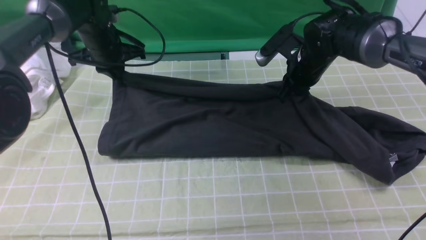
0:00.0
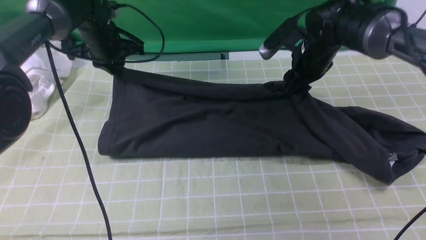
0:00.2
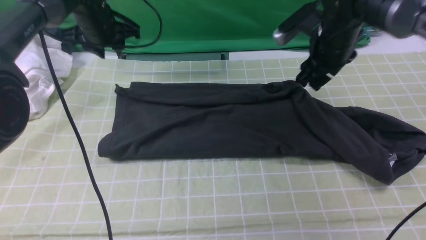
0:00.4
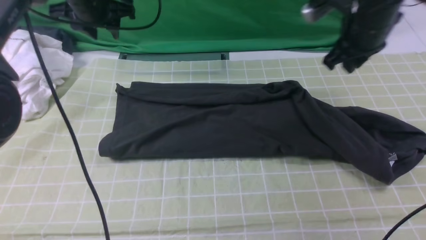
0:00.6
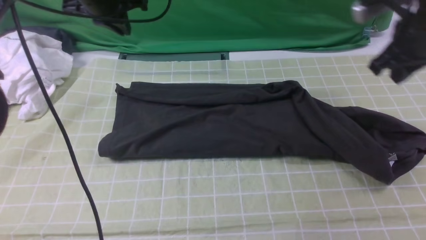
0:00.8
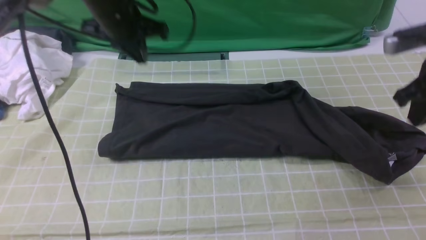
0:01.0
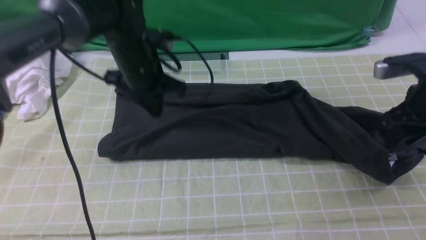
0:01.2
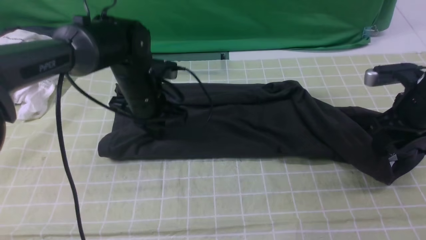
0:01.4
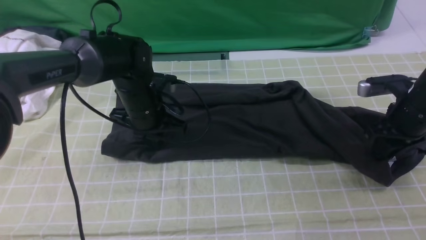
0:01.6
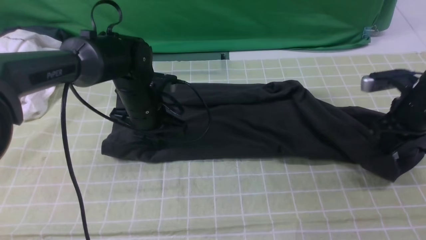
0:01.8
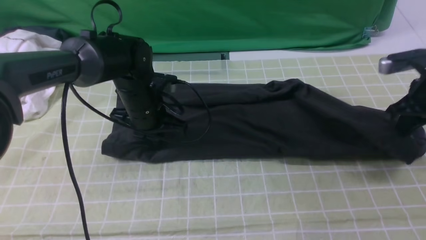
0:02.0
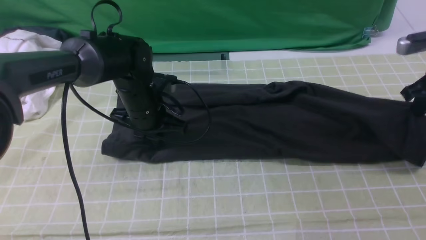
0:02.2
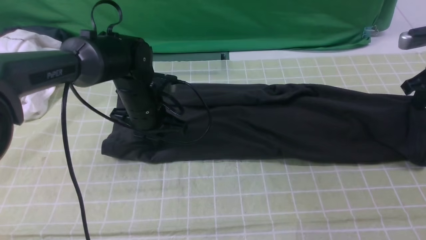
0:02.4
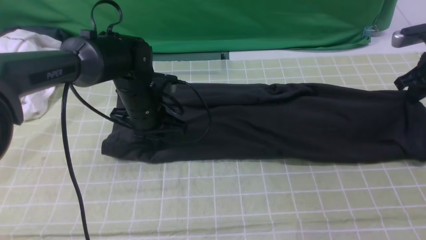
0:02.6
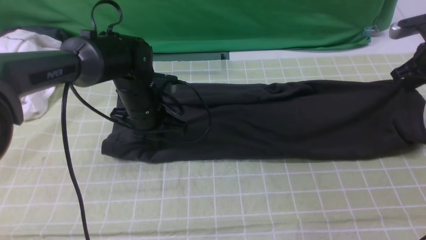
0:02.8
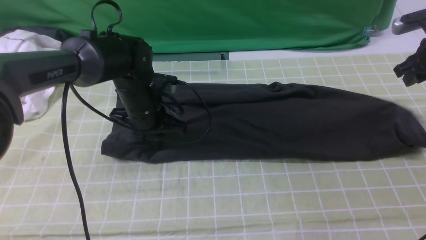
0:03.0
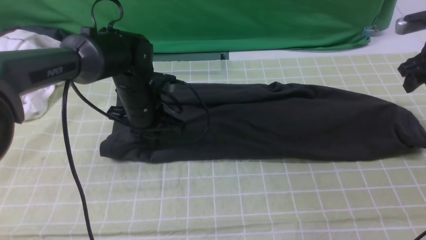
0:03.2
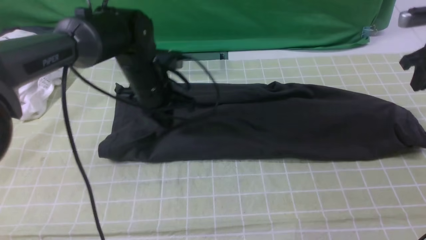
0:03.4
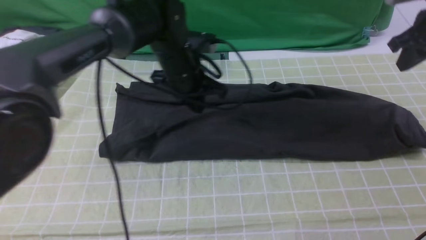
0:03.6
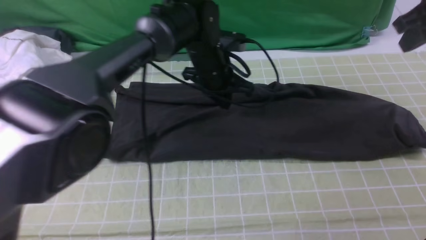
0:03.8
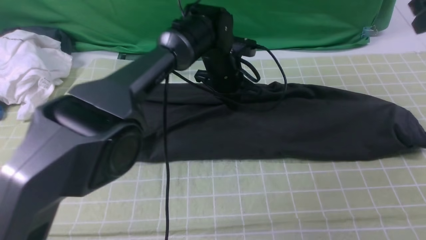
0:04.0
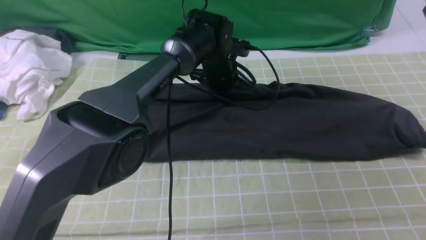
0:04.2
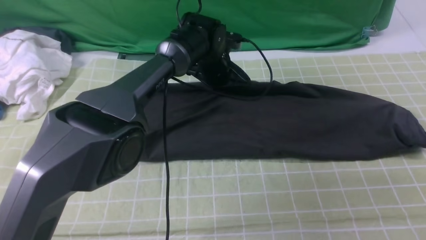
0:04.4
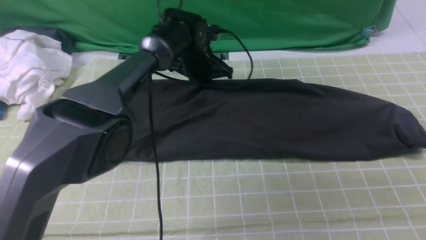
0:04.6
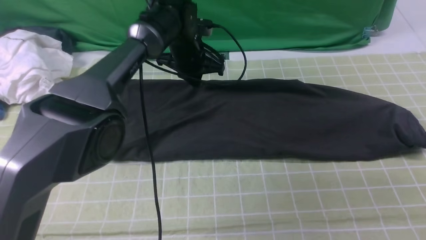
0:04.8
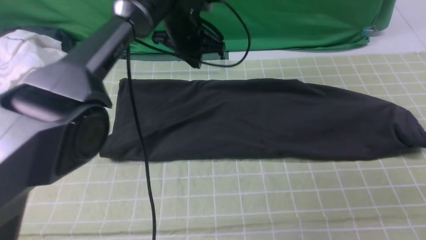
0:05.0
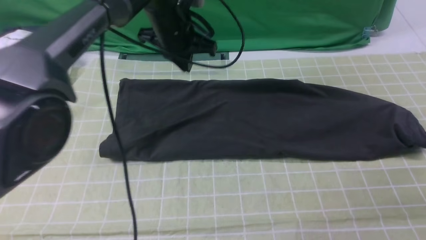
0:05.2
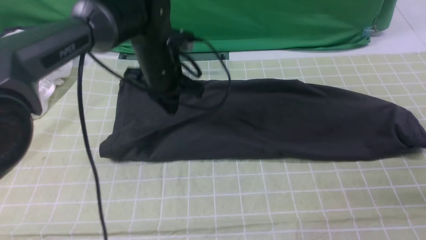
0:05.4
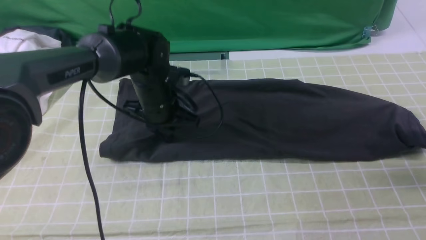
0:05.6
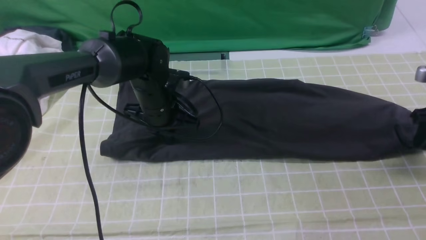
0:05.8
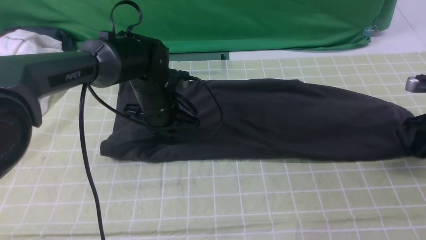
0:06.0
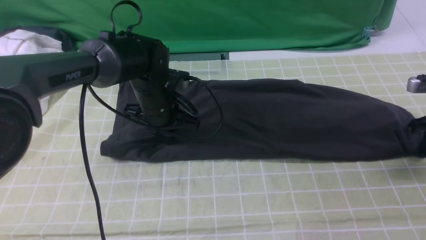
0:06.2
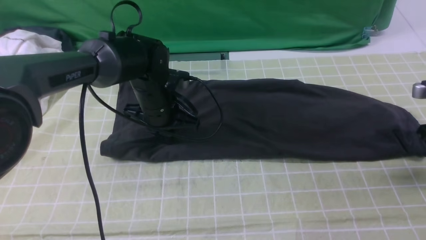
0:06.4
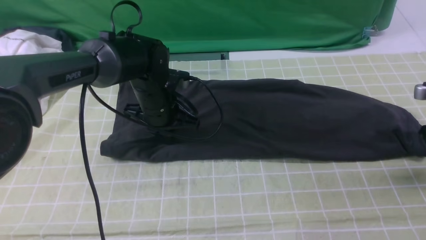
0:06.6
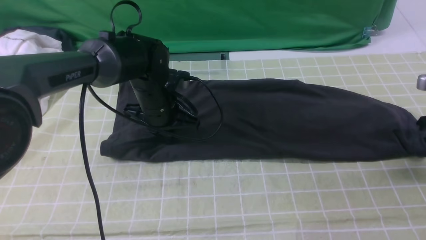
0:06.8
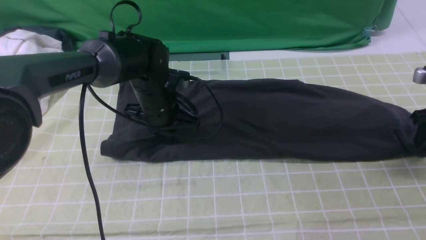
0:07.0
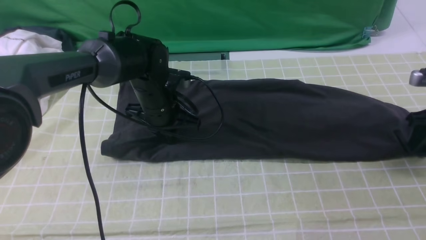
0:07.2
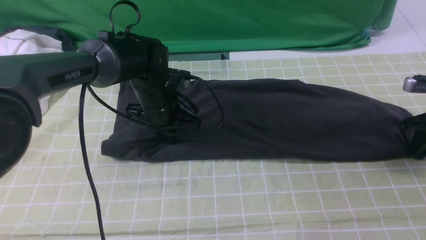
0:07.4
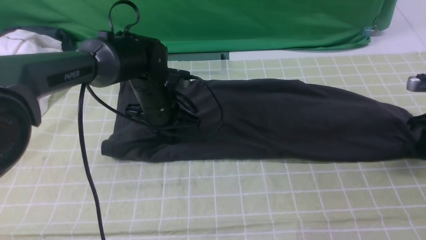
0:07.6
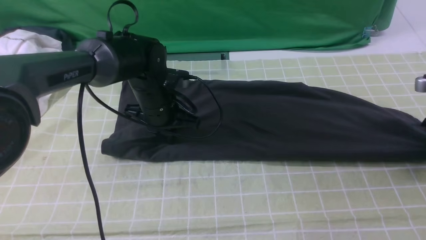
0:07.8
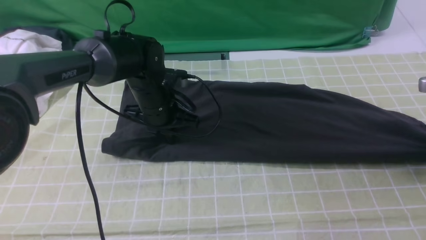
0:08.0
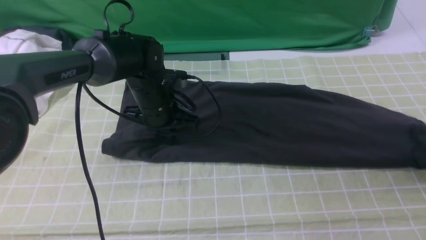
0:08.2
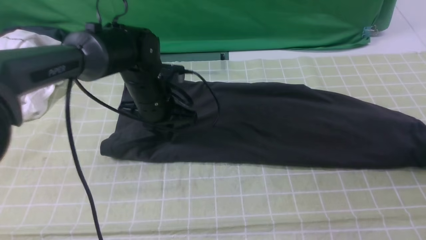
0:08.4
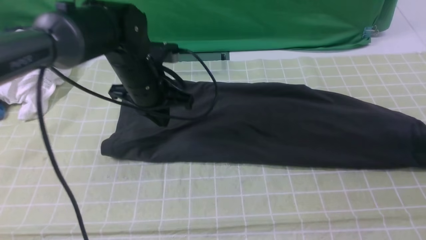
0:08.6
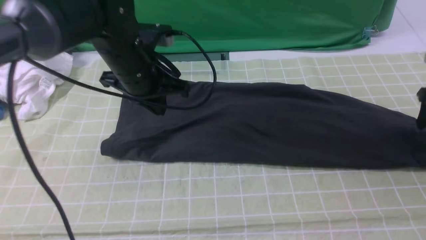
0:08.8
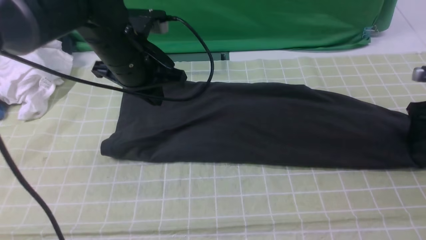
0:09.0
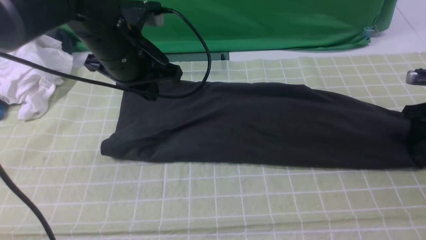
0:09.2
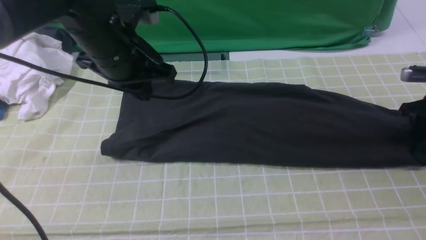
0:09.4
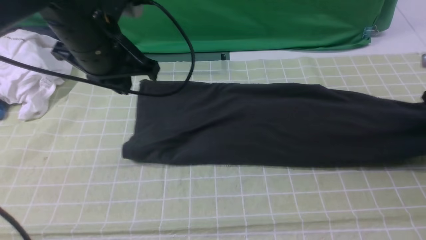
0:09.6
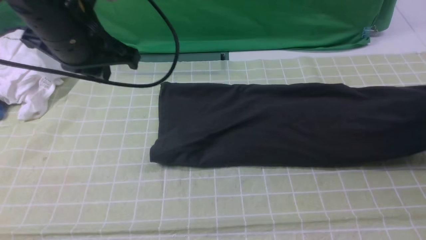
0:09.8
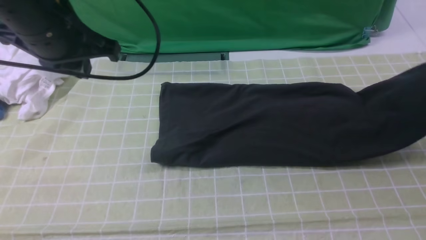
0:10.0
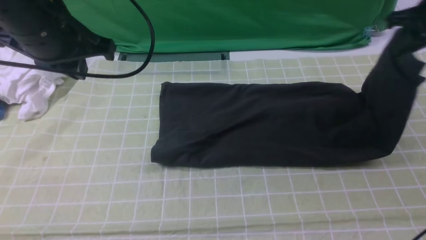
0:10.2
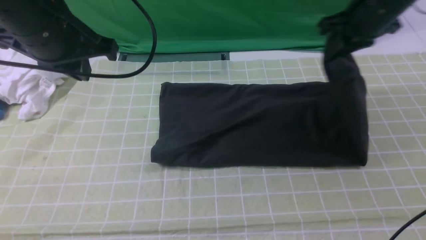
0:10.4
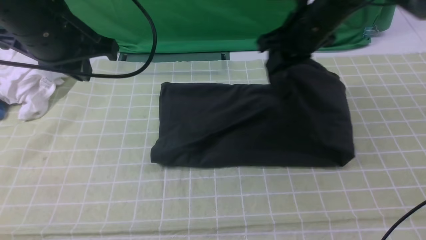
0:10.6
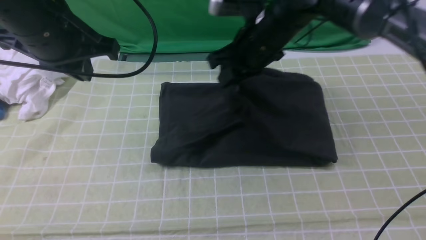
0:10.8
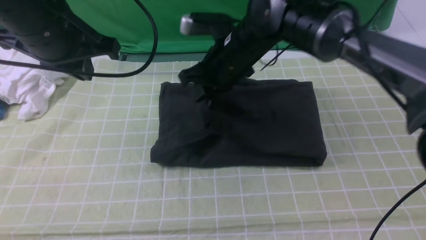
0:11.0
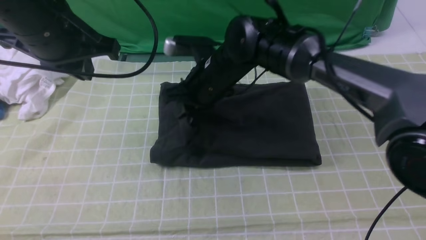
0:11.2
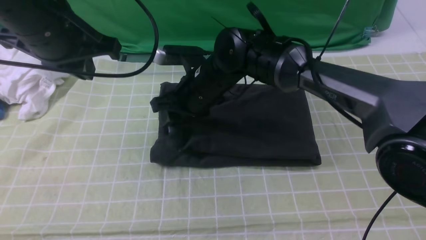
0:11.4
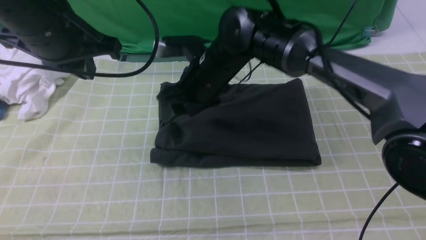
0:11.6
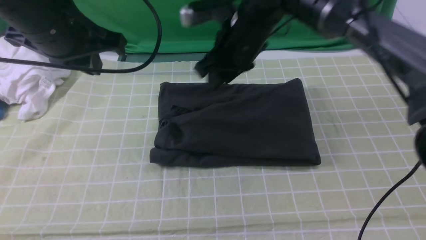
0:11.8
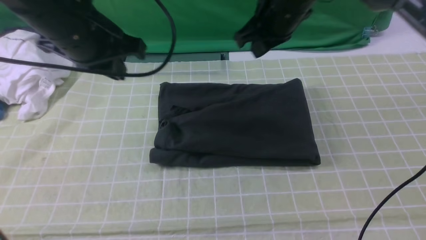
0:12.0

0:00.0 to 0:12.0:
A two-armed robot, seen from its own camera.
Step, 0:00.6 to 0:09.4: use the right arm to clamp the right edge of the fabric.
Step, 0:09.6 to 0:11.6: use the right arm to drag the right edge of the fabric to the left and folds it over the left edge.
0:00.0 to 0:01.6: The right gripper travels to the right and backward by some 20 cm, and closes, then opens again; the left gripper is displaced backward, to the right and downward by approximately 15 cm, and opens, then closes once more.
0:01.6 to 0:03.0: The right gripper goes roughly 10 cm forward and to the right, and closes and opens again.
0:03.0 to 0:04.4: The right gripper moves upward and backward, roughly 20 cm, and closes up, while the left gripper goes about 15 cm forward and to the right.
0:04.4 to 0:06.0: The right gripper goes some 25 cm downward, and opens. The left gripper shifts roughly 15 cm backward and to the left.
0:06.0 to 0:07.6: The grippers move only a little.
0:07.6 to 0:09.0: The left gripper moves upward, approximately 15 cm; the right gripper opens up.
0:09.0 to 0:10.4: The left gripper shifts roughly 10 cm upward and to the left. Meanwhile the right gripper is displaced to the left and upward by about 25 cm, and closes.
0:10.4 to 0:12.0: The right gripper goes roughly 10 cm to the left, and opens, then closes again.

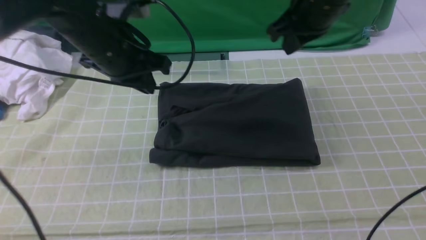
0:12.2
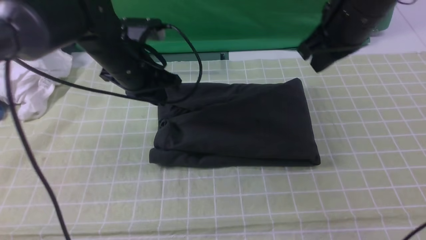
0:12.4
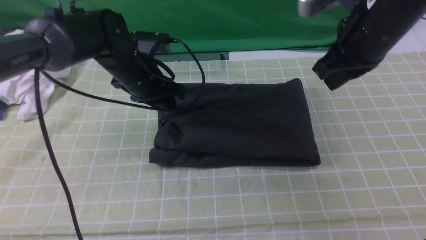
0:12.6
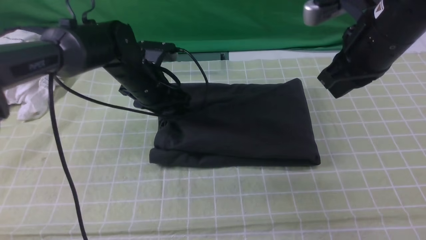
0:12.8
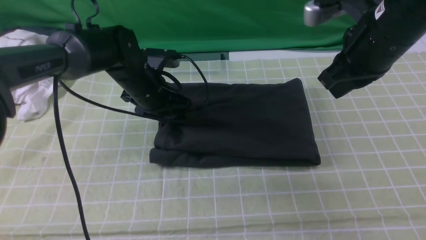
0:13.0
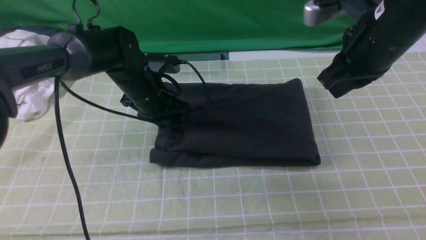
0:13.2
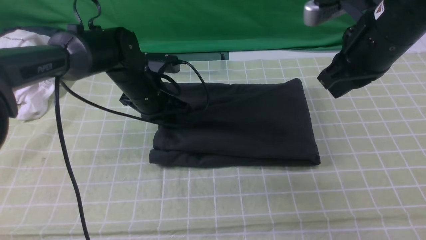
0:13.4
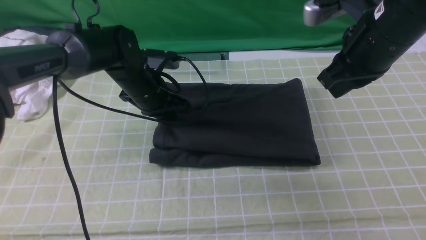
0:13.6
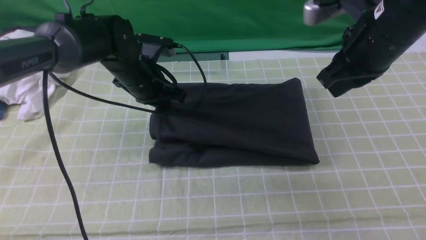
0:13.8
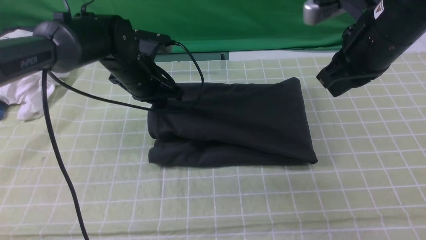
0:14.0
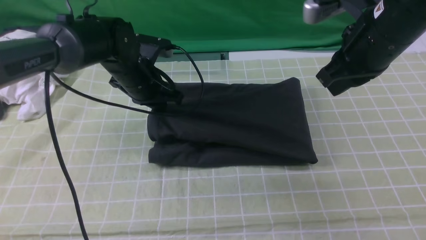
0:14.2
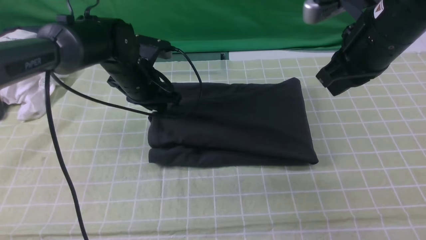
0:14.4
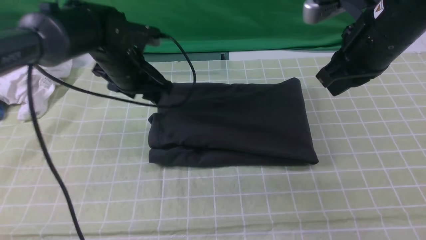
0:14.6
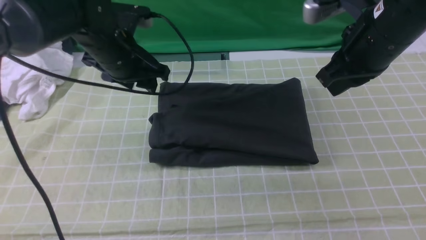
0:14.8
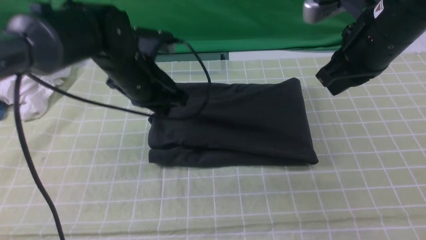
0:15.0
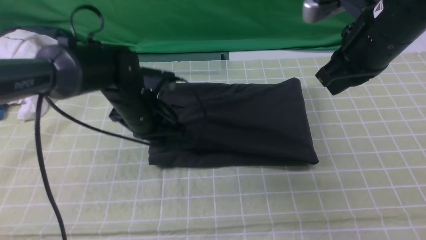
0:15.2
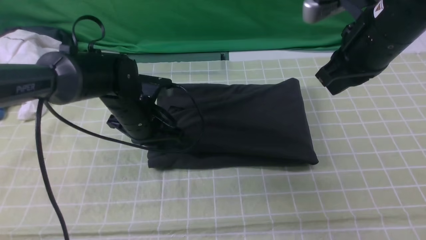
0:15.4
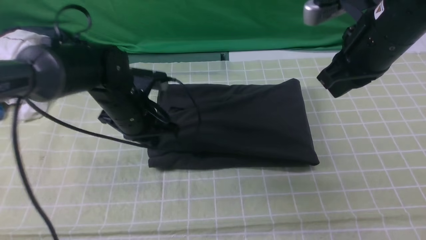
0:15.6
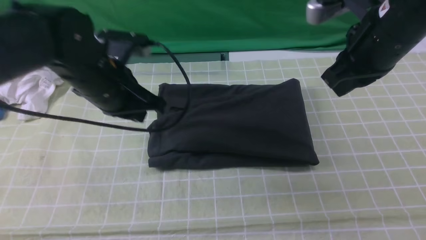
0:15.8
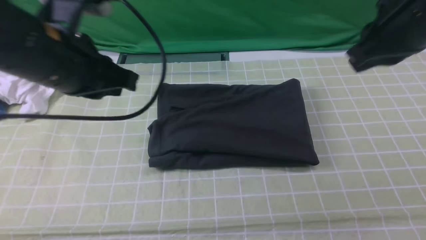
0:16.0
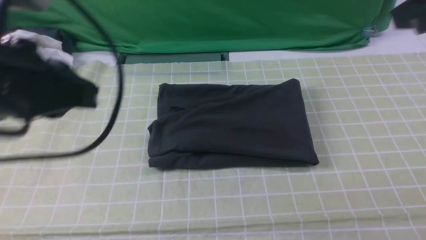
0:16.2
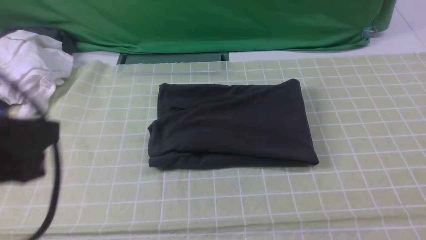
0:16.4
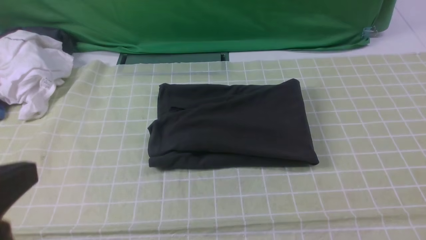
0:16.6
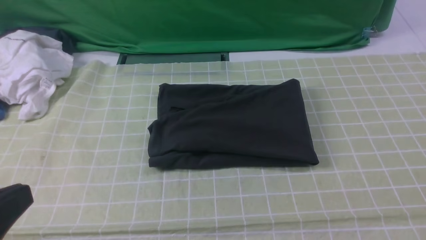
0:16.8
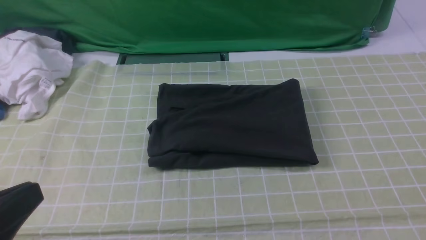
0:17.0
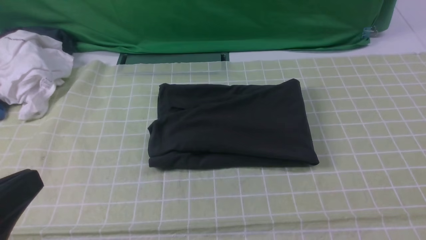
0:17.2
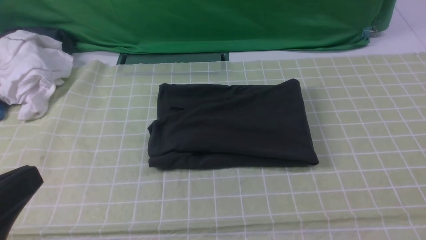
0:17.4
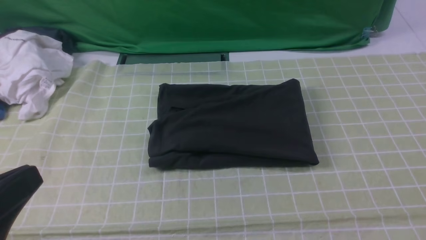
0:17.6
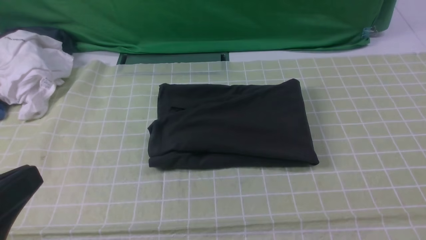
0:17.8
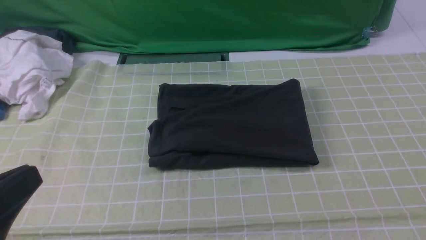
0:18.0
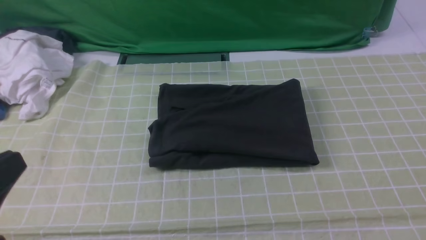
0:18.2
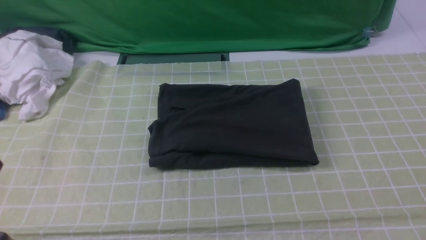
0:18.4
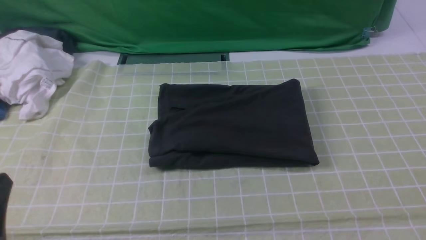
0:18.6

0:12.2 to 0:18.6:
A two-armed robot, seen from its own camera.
0:12.2 to 0:13.8: The right gripper shifts approximately 5 cm backward, while the left gripper travels downward and forward by some 10 cm, and opens, then closes once more.
0:13.8 to 0:15.4: The left gripper shifts roughly 5 cm backward, and opens and closes again.
0:15.4 to 0:17.0: The left gripper moves backward and upward, approximately 35 cm; the right gripper travels backward and to the right by about 35 cm.
0:17.0 to 0:18.6: The left gripper heads downward, covering about 5 cm.
